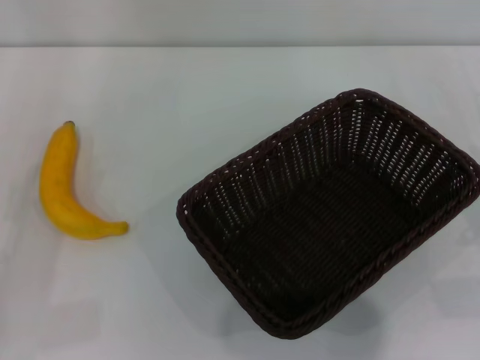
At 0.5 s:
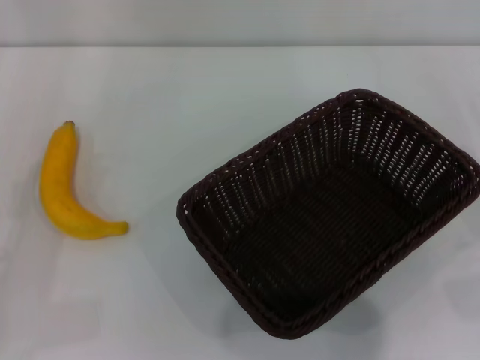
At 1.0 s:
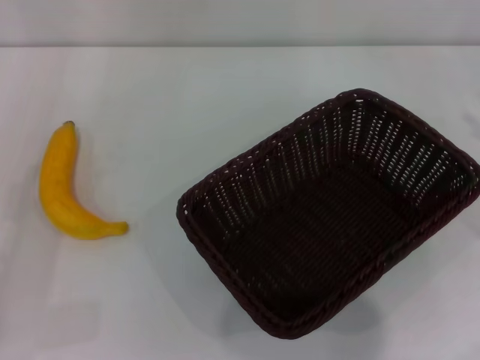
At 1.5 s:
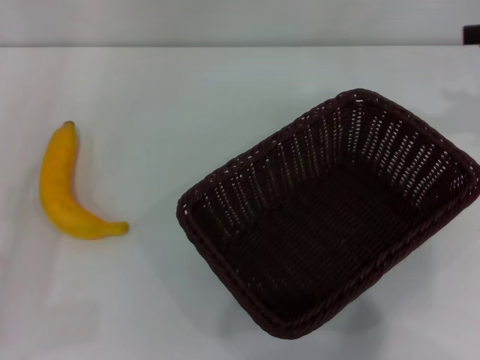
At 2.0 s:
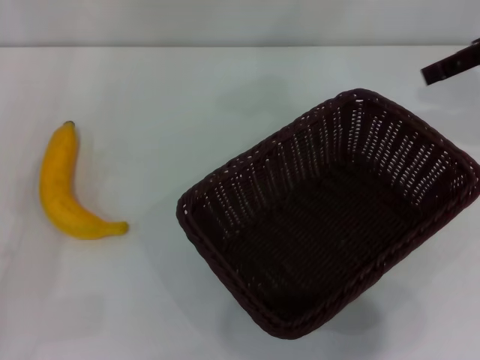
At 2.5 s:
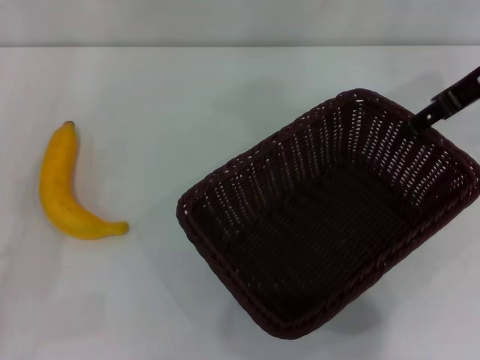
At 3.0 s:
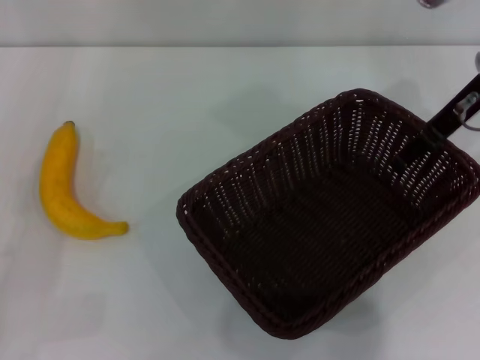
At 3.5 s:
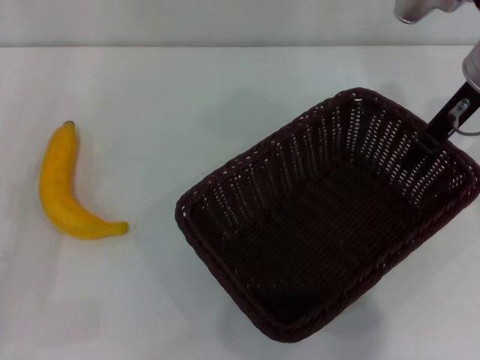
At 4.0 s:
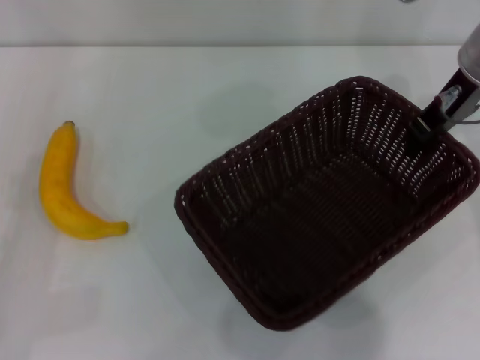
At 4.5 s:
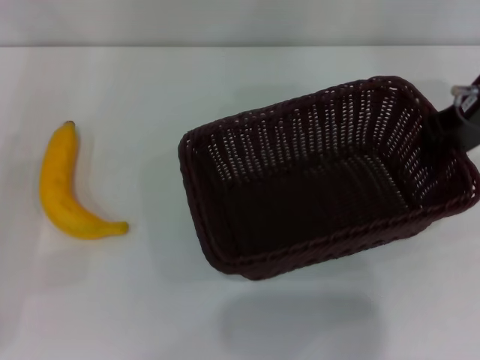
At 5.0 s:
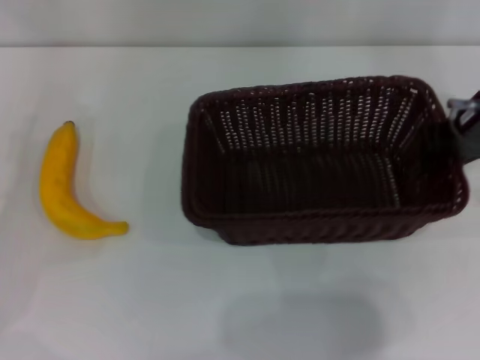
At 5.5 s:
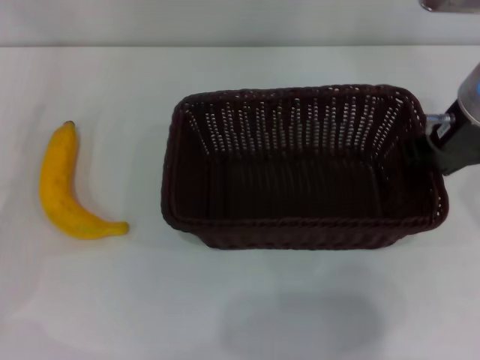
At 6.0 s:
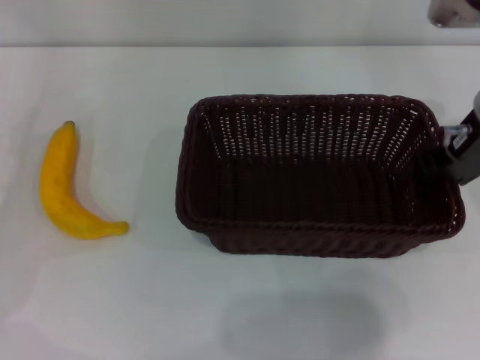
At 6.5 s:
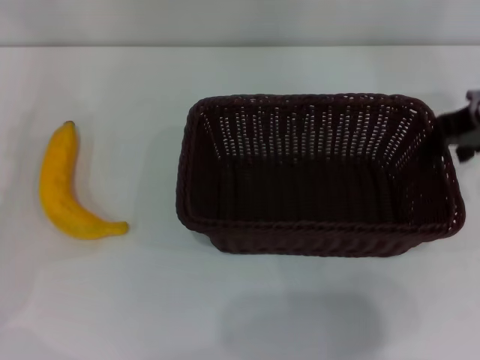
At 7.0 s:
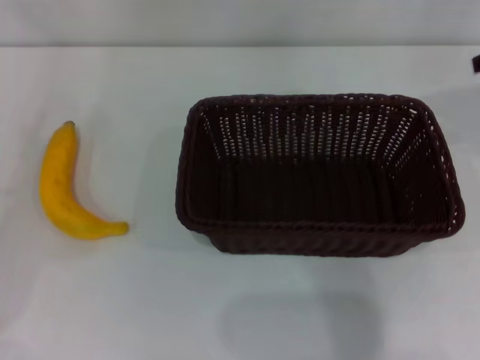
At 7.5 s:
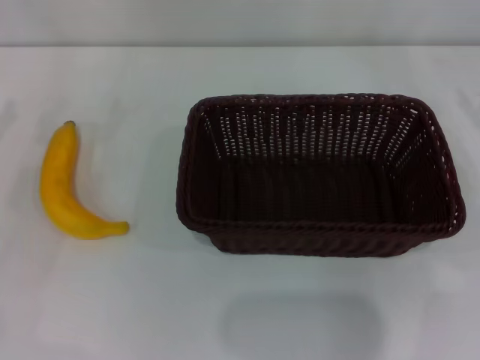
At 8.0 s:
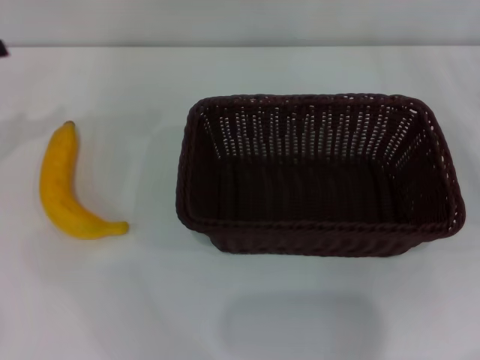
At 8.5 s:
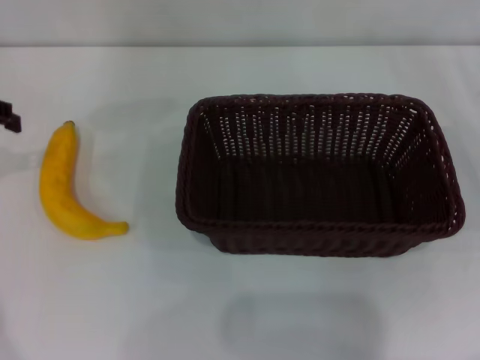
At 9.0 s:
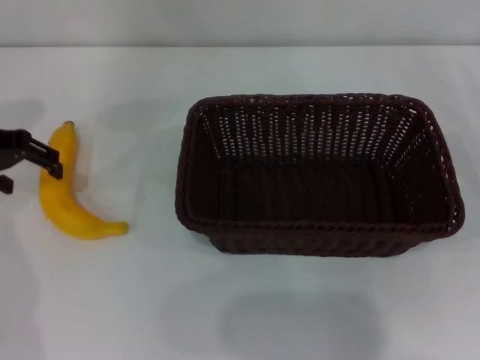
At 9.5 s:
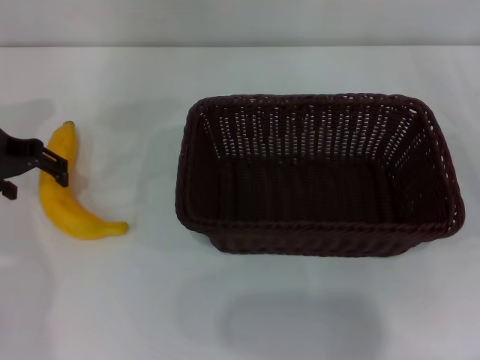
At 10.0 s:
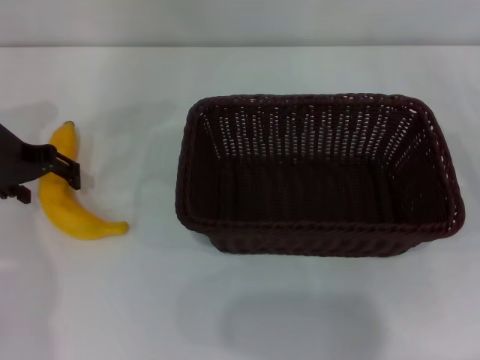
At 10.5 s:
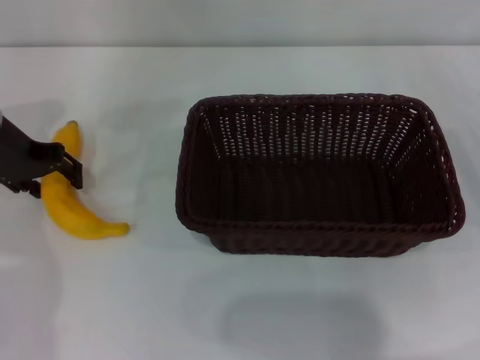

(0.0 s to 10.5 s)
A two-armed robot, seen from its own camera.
Step, 0.0 s - 4.0 s: Pick up the dark basket with the right gripper.
Step, 4.5 s - 6.5 s: Place the dark basket in the center of view with the right gripper.
0.0 s - 2.0 s: The right gripper shifts approximately 30 cm upward and forward.
2.0 s - 4.0 s: The right gripper goes approximately 10 cm to the left and downward, and closes up.
4.0 s - 6.5 s: The left gripper travels forward by approximately 5 cm, while the right gripper goes about 5 cm backward, and opens up.
6.5 s - 8.5 s: The right gripper moves to the right and downward, roughly 25 cm.
8.5 s - 10.5 s: The left gripper shifts roughly 10 cm downward and to the right.

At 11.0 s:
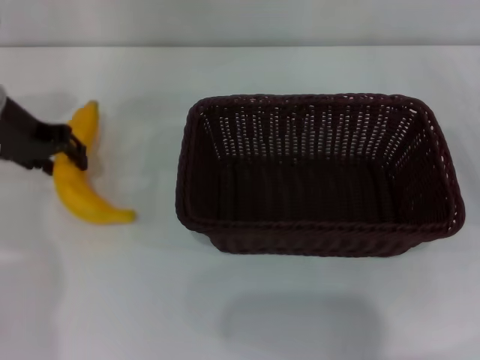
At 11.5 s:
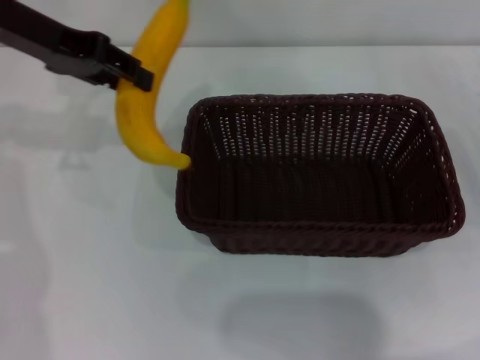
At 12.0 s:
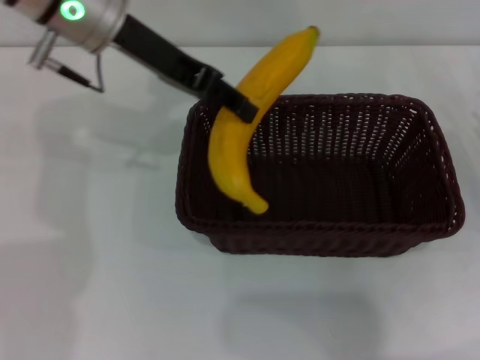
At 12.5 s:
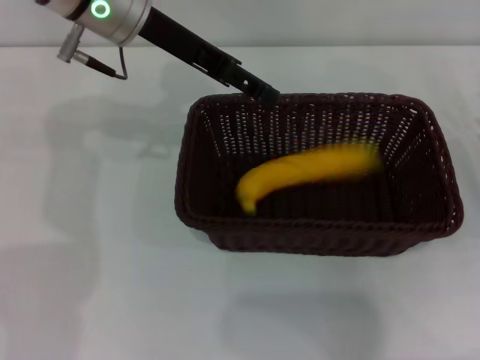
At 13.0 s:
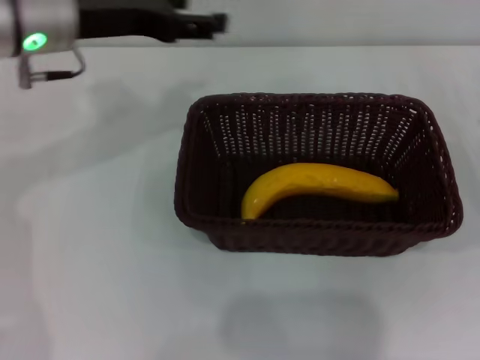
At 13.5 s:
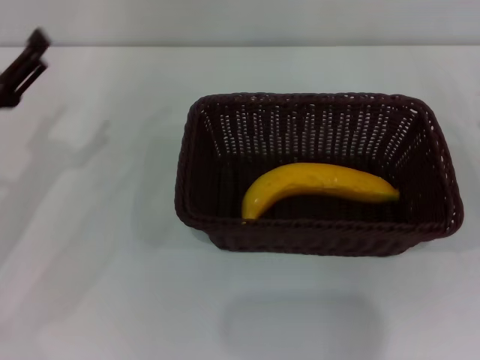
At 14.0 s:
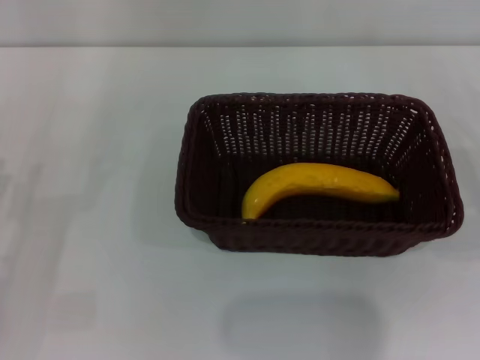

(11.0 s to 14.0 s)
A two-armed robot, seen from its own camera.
Step, 11.5 s - 12.5 s: Place the banana into the dark basket with the left gripper.
11.0 s - 12.5 s: The left gripper goes some 15 cm to the right and upward, and opens up.
12.5 s - 14.0 s: The left gripper heads backward, to the left and downward, covering roughly 35 cm, and opens up.
